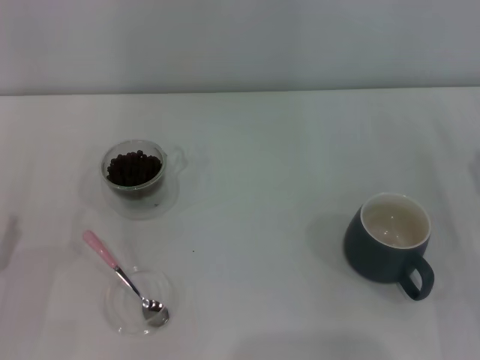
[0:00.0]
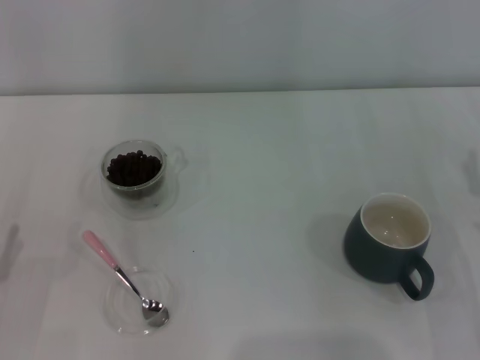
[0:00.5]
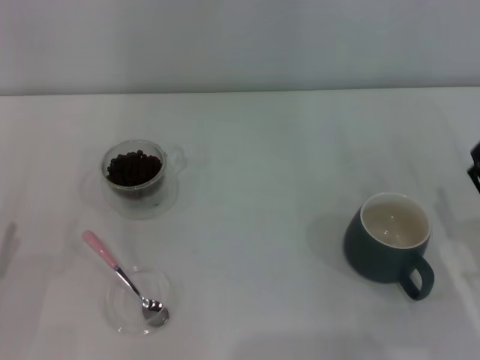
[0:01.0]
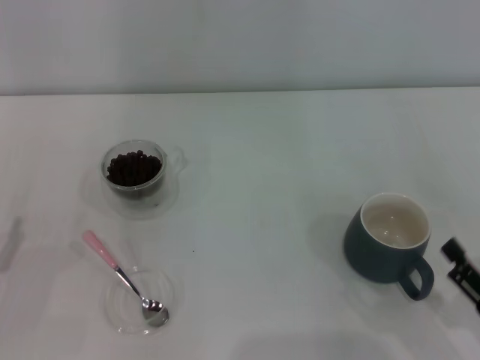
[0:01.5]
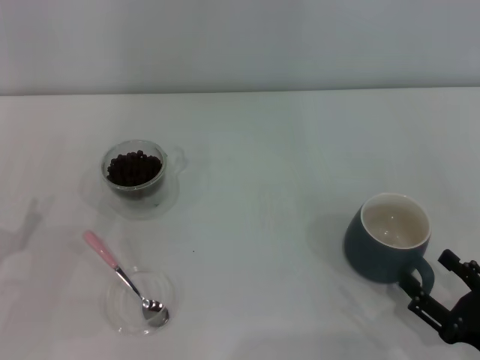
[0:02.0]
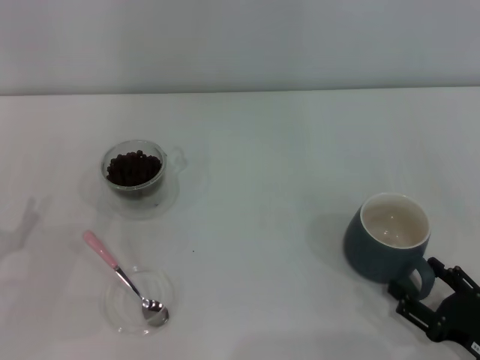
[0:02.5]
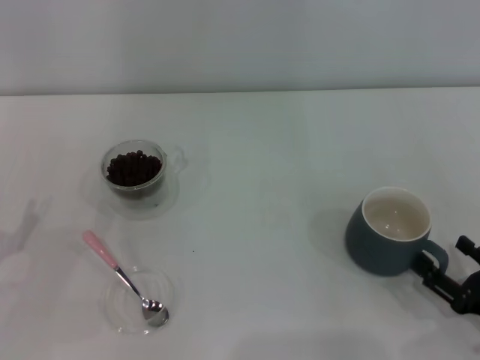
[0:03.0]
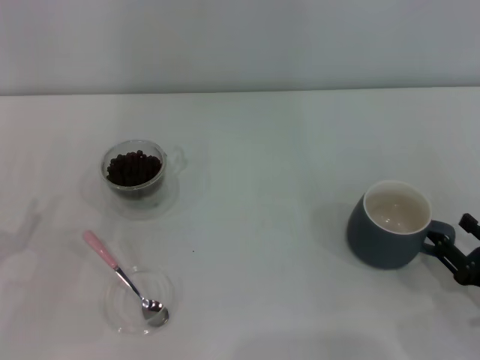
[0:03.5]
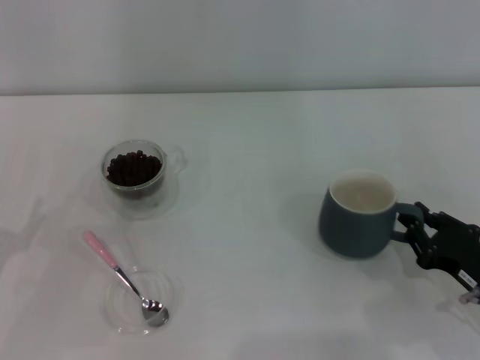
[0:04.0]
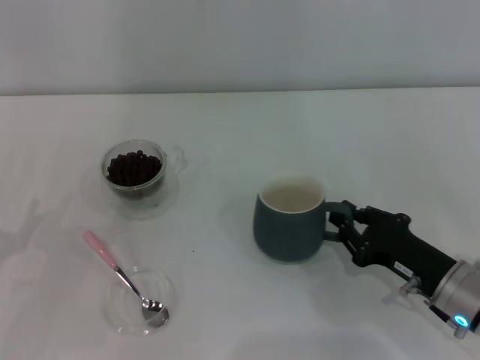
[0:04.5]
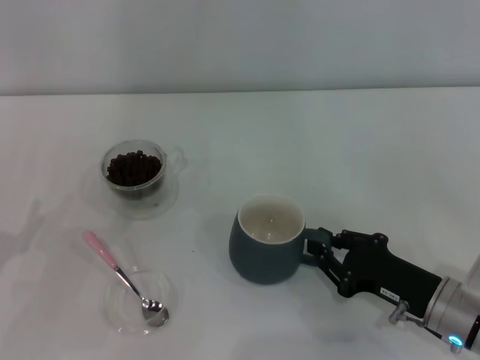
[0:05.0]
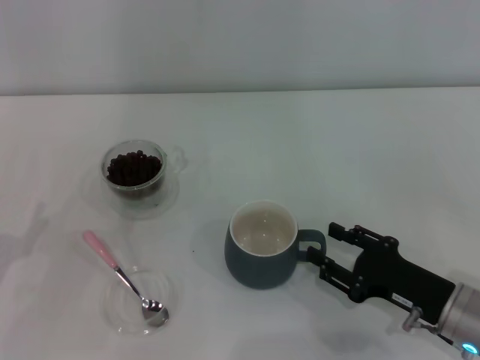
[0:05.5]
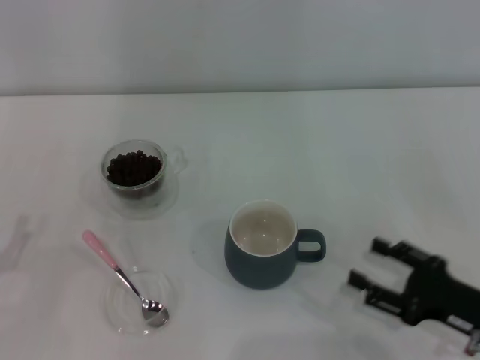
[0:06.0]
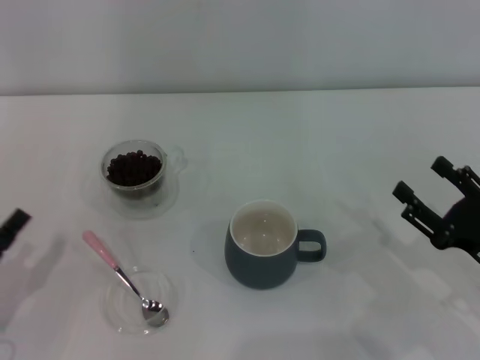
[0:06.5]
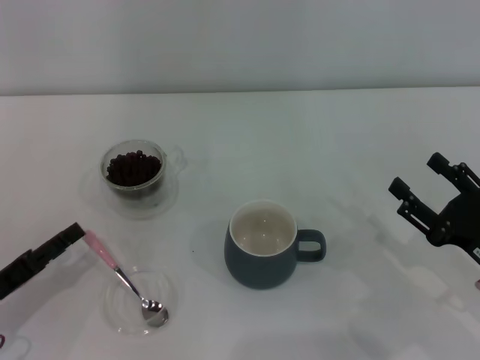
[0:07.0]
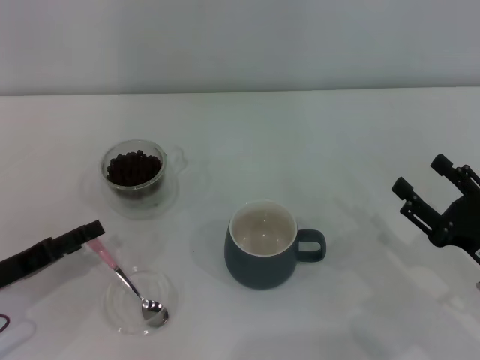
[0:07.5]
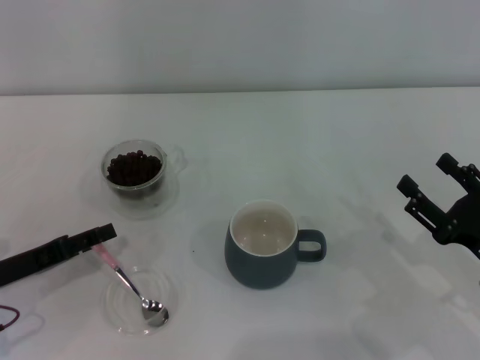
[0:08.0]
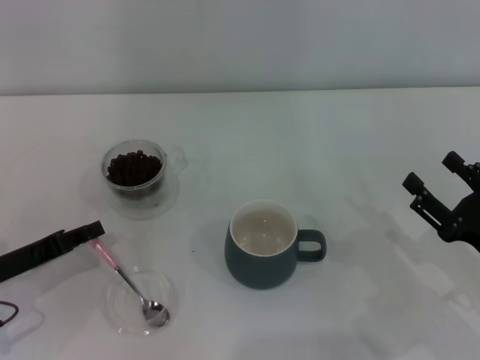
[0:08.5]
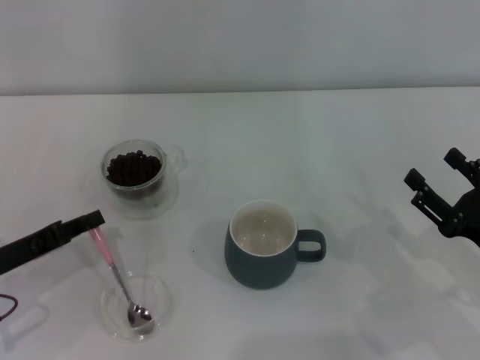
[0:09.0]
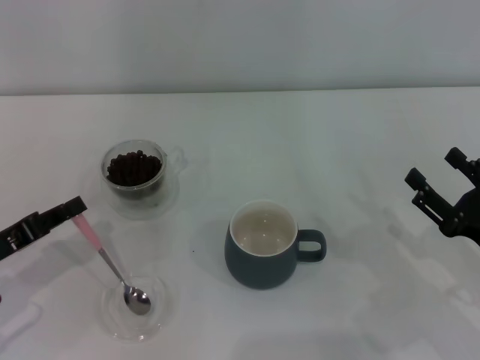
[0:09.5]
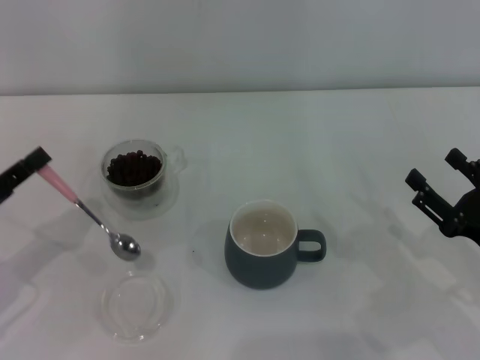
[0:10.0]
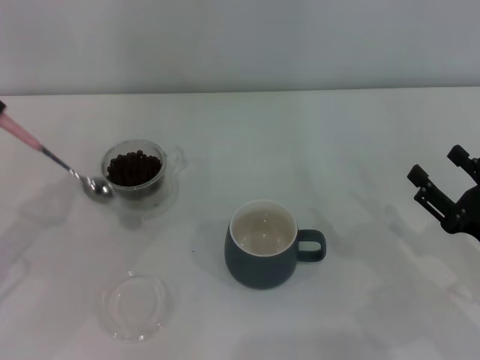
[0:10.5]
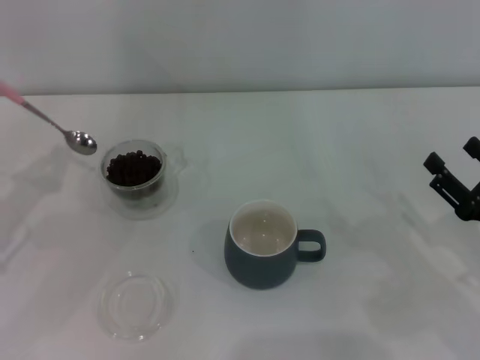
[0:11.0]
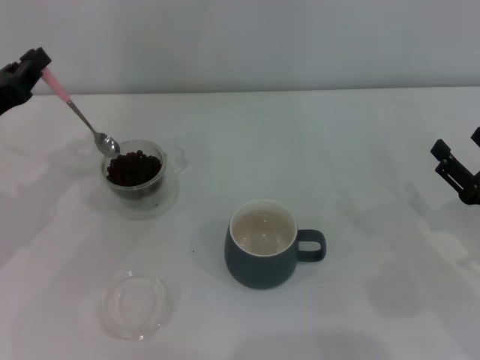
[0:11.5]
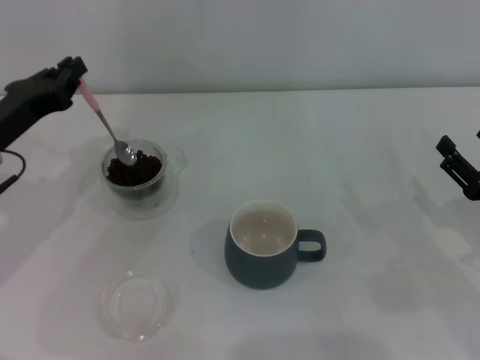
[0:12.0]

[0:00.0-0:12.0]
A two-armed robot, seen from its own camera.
Task of the whole recording: Use a pink spoon to take out the coffee beans from the glass and pour them into the gray cup.
Step, 0:00.0 to 0:06.0: Move the cup to the center of view with the left gripper.
Step, 0:06.5 to 0:09.5: Pick up the spoon with the right gripper.
0:00.0 to 0:02.0: The right gripper goes about 15 cm backward.
0:02.0 to 0:04.0: The right gripper goes approximately 10 cm forward, and closes its fingers.
0:04.0 to 0:06.0: The right gripper opens up.
0:06.0 to 0:08.0: The left gripper heads forward, covering approximately 5 cm.
0:08.0 to 0:10.0: The left gripper closes up.
0:10.0 to 0:12.0: The left gripper moves forward and to the right, roughly 10 cm.

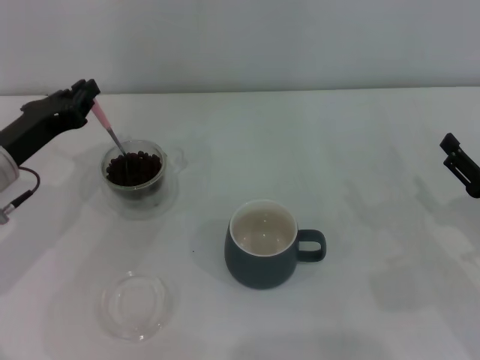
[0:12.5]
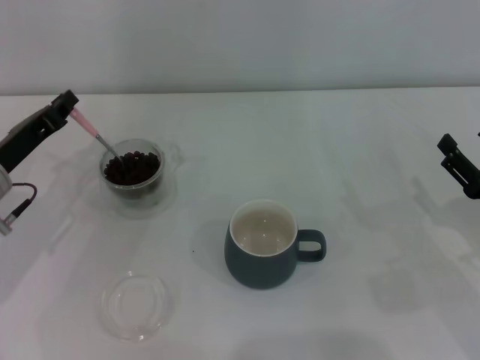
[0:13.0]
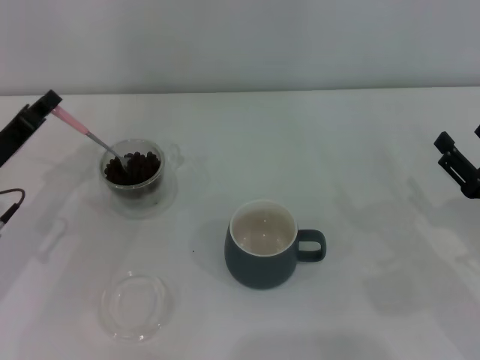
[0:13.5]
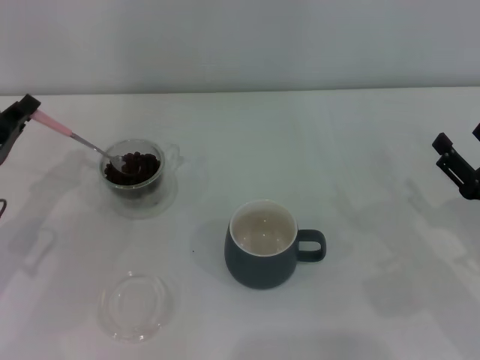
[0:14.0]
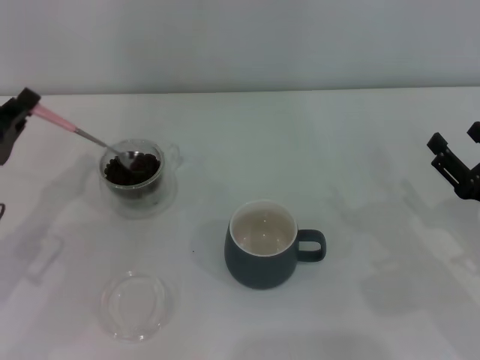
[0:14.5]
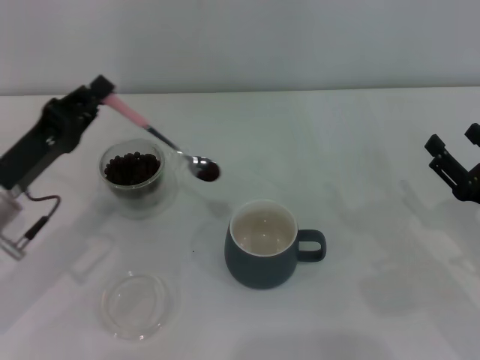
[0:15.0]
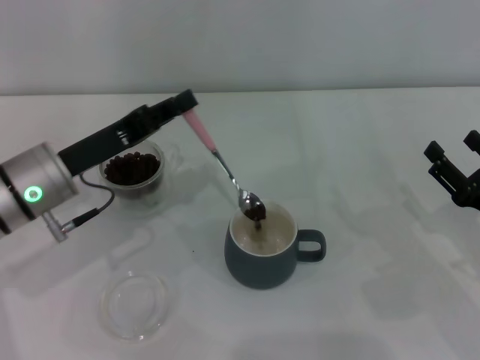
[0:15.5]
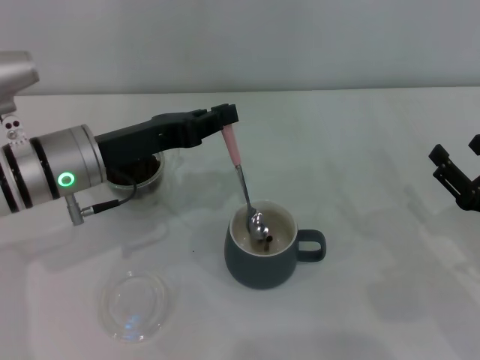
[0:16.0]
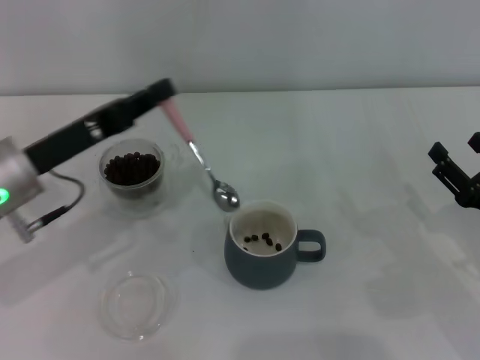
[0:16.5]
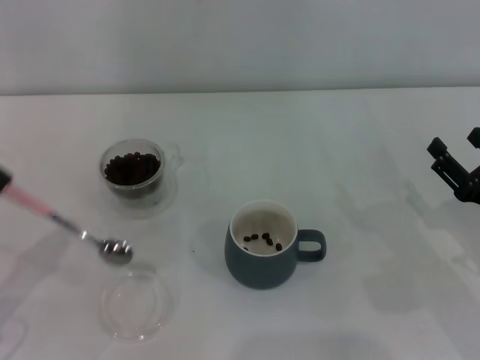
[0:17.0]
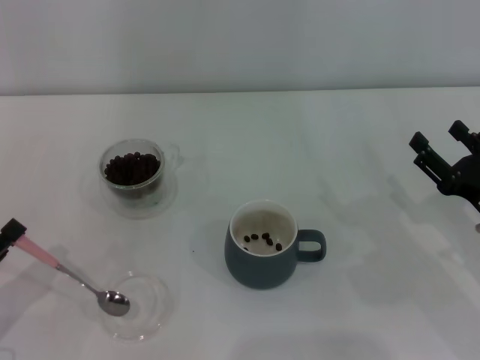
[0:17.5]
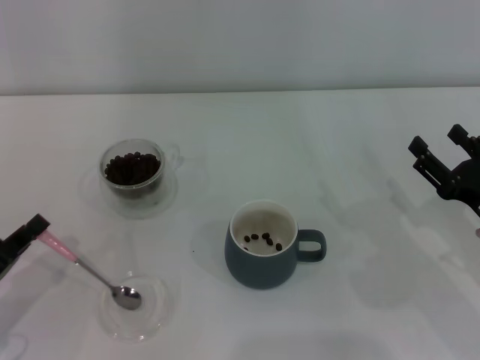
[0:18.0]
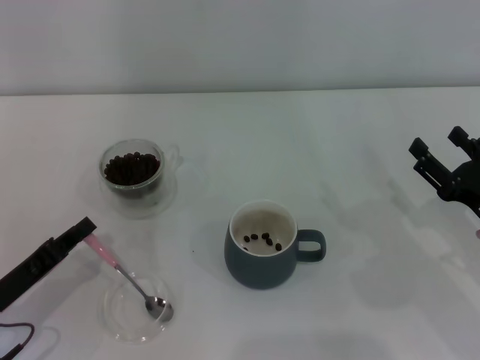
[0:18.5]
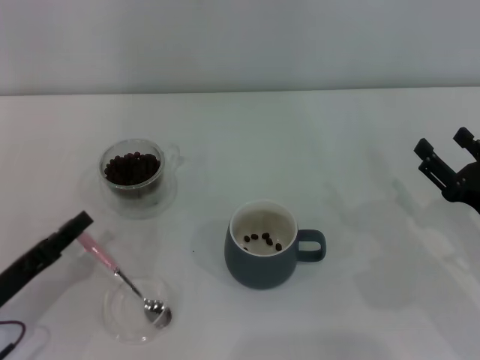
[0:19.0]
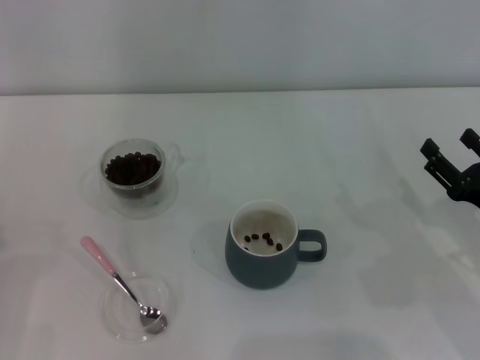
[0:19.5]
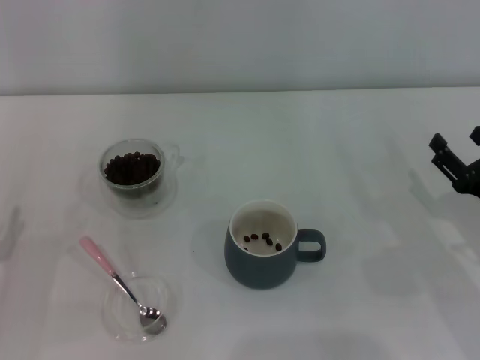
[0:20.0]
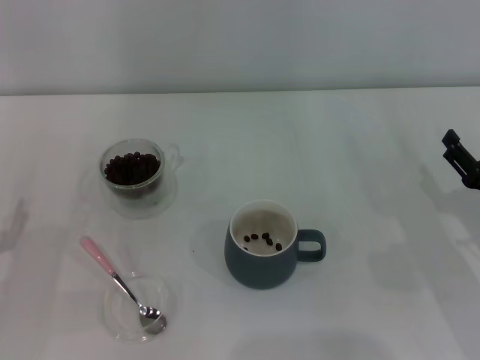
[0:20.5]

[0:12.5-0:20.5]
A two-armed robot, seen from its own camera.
Task of the whole recording: Use a pink spoon to take out the coffee beans from the glass and pour them into the gray cup.
0:12.5 to 0:14.5: The left gripper moves backward, approximately 5 cm.
0:14.5 to 0:16.5: The left gripper goes about 5 cm to the right.
0:16.5 to 0:18.5: The left gripper is displaced downward, backward and to the left by some 15 cm.
0:18.5 to 0:20.5: The left gripper opens up.

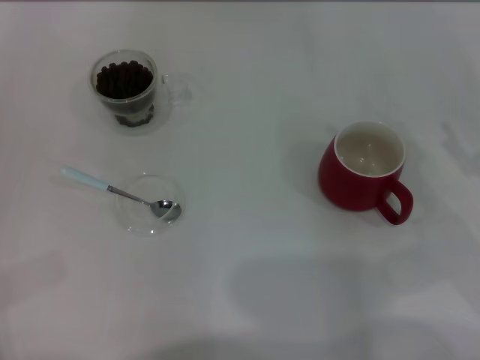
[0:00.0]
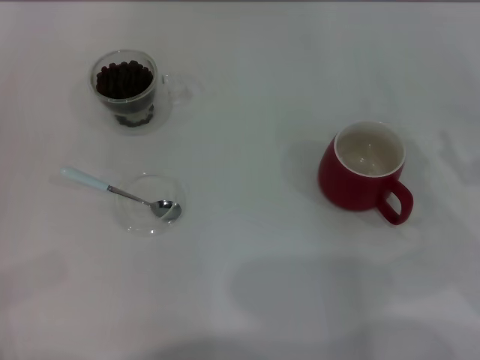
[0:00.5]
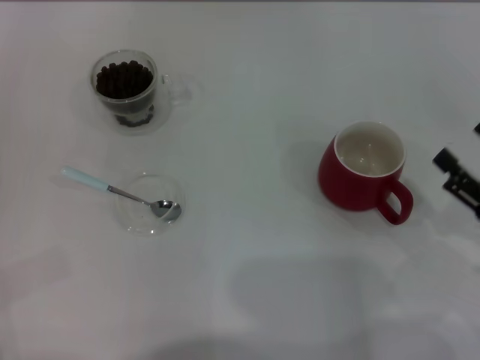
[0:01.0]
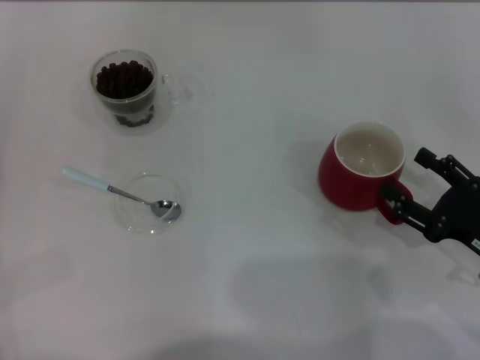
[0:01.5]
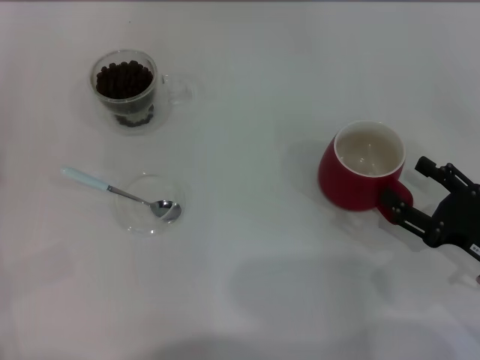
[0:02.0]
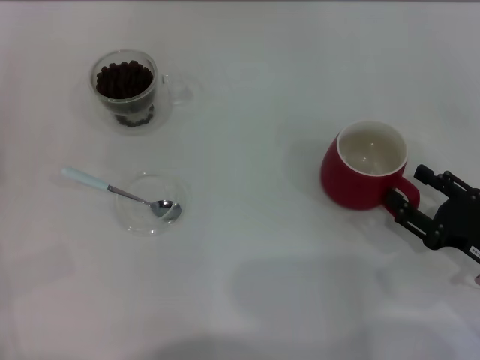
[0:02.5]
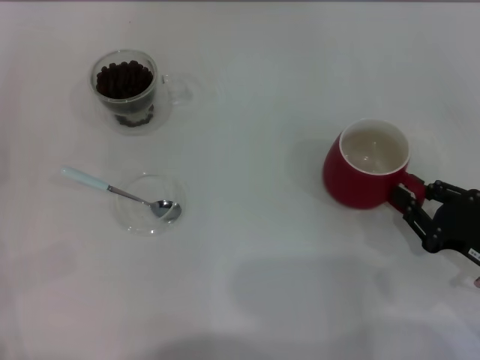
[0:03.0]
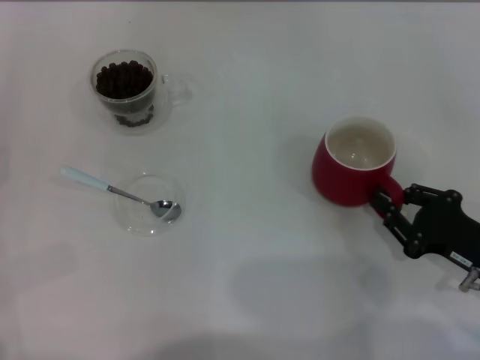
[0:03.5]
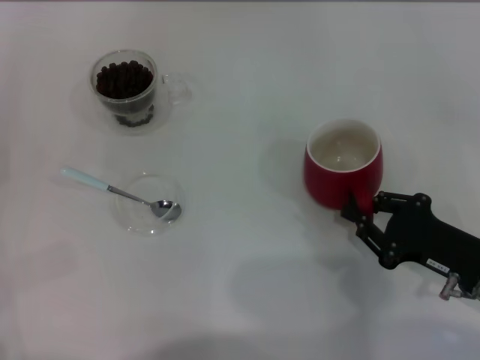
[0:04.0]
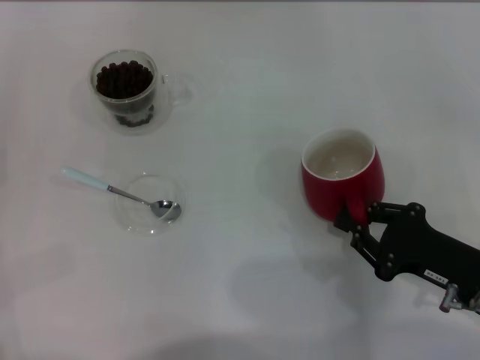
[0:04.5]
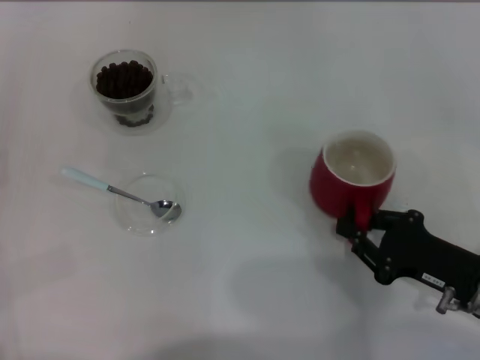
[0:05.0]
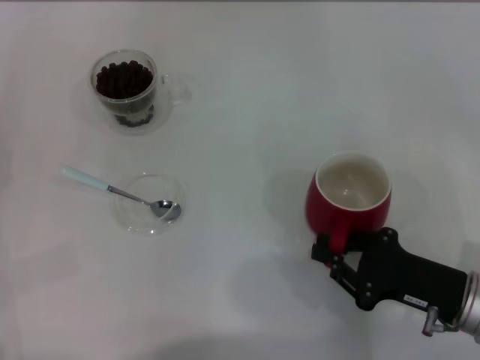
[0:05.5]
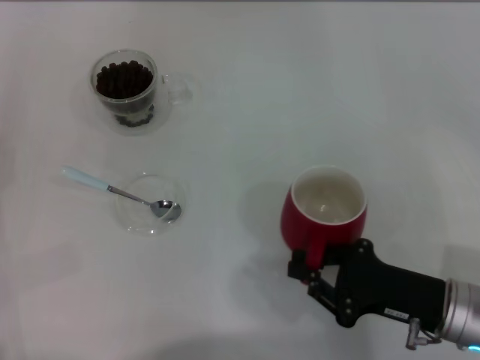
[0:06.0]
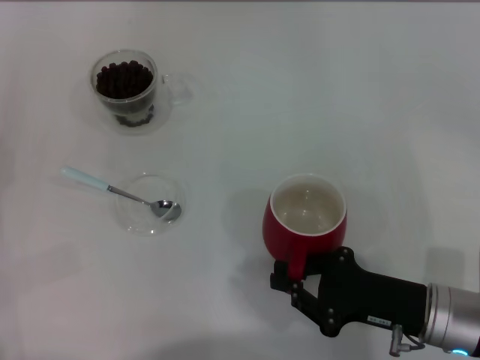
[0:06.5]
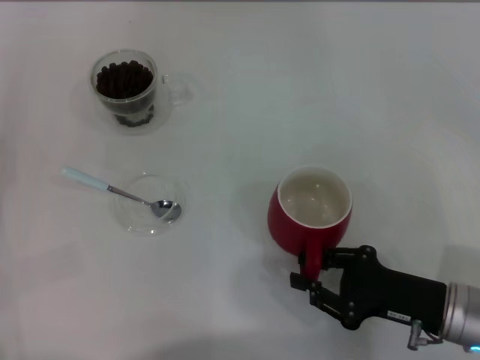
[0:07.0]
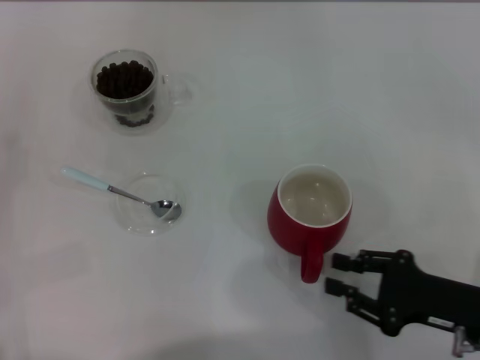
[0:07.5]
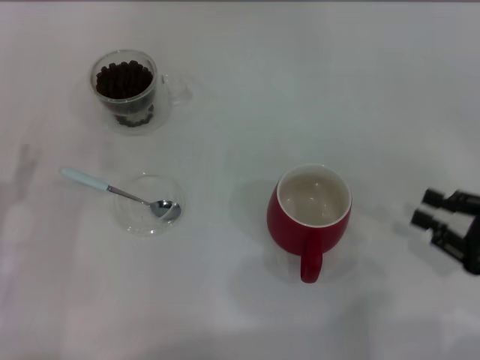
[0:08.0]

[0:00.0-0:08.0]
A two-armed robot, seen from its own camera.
Task of the whole recording: Use a blue spoon to take out the coffee beans from the glass and pour them into the red cup.
0:00.0 to 0:02.0: The right gripper shifts by about 5 cm.
0:02.0 to 0:04.0: The right gripper closes its fingers.
0:04.0 to 0:06.0: The grippers make only small movements.
0:06.0 to 0:08.0: The right gripper moves to the right, about 10 cm. Meanwhile the left gripper goes approximately 5 cm to the right.
